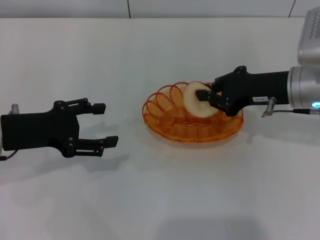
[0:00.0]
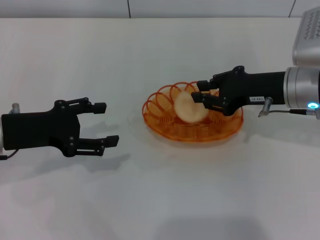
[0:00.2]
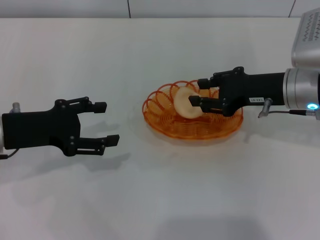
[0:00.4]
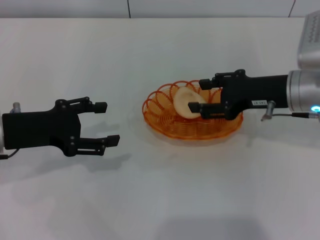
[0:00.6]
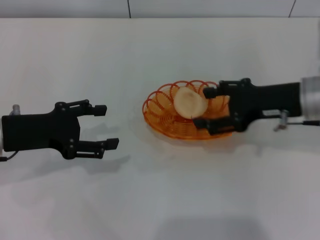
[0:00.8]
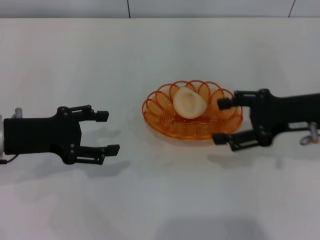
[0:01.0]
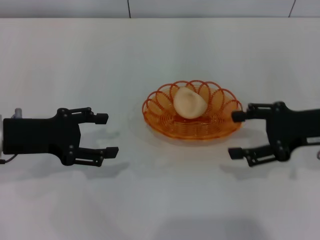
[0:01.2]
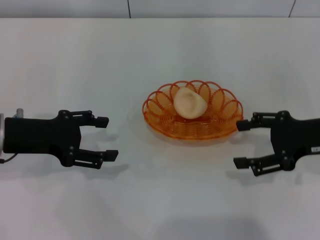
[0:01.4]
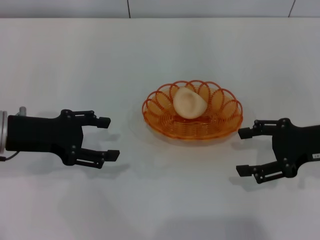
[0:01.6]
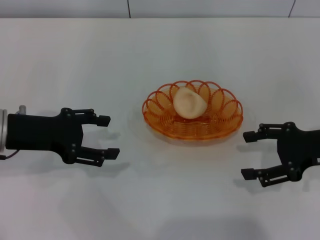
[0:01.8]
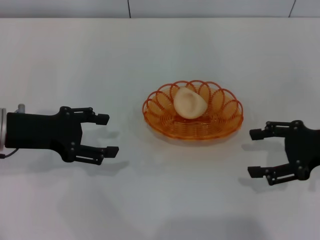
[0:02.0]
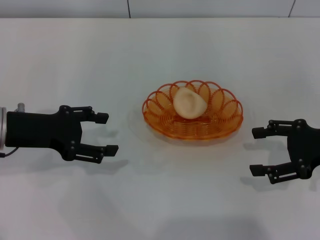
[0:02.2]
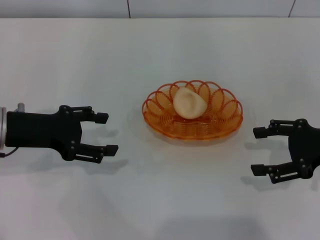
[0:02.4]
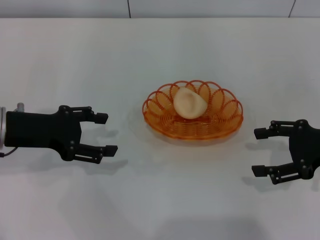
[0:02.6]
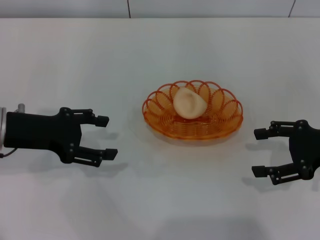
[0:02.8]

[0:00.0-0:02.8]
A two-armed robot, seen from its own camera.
Step, 0:00.0 to 0:00.8: Place the egg yolk pastry into the basket with the right gripper.
0:00.0 to 0:01.4: The right gripper travels to the right and backward by roughly 10 cm, and opens.
0:01.4 to 0:02.8: There are only small adjustments of the grippers.

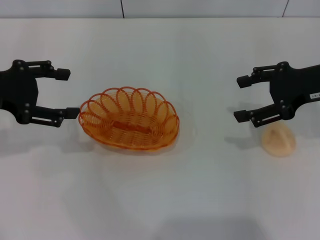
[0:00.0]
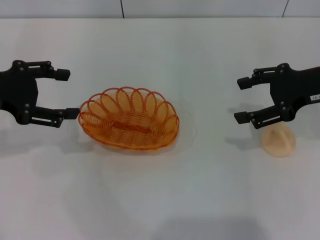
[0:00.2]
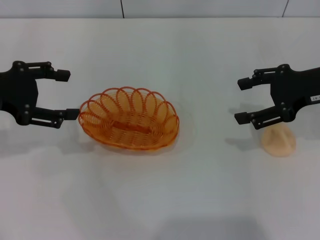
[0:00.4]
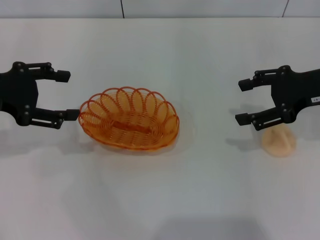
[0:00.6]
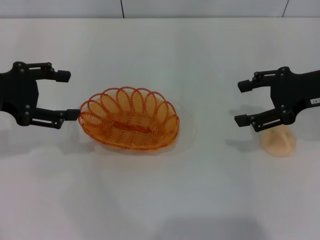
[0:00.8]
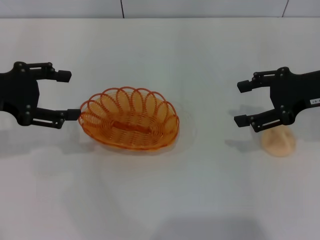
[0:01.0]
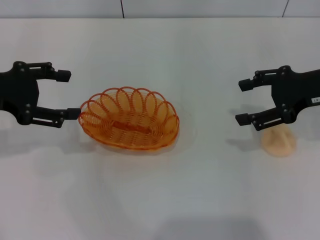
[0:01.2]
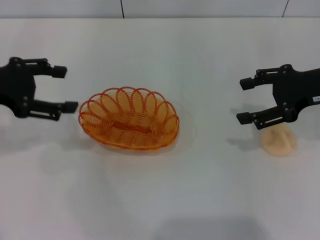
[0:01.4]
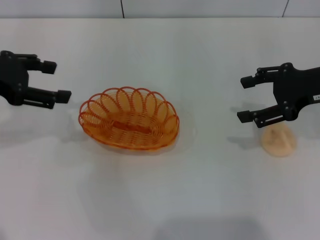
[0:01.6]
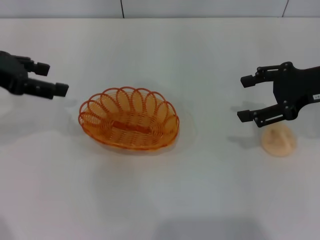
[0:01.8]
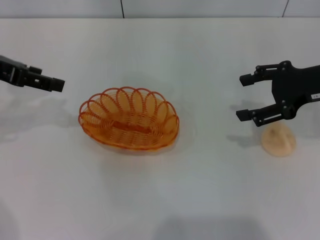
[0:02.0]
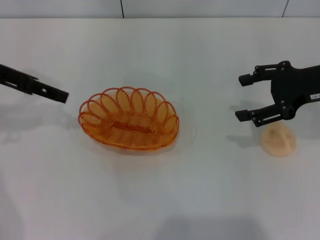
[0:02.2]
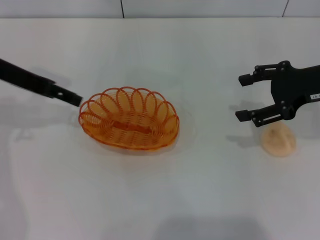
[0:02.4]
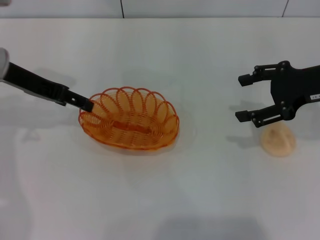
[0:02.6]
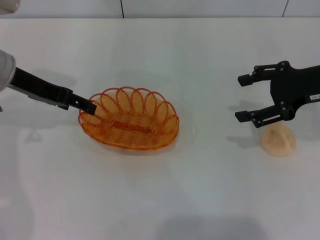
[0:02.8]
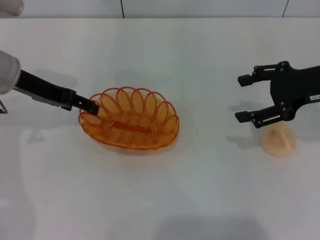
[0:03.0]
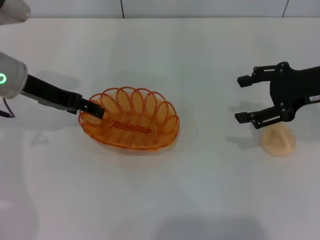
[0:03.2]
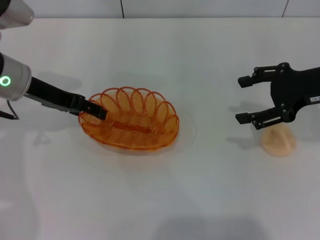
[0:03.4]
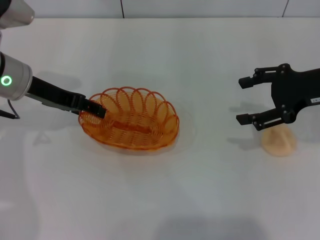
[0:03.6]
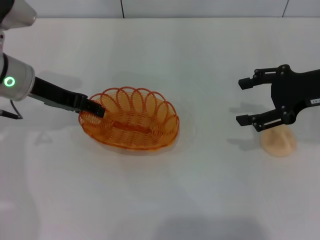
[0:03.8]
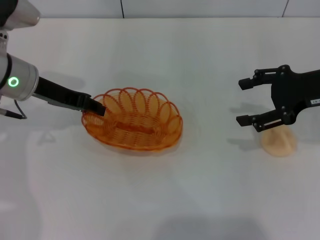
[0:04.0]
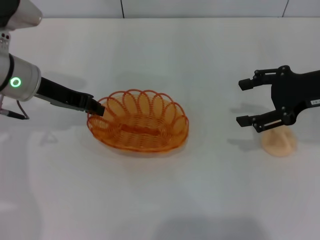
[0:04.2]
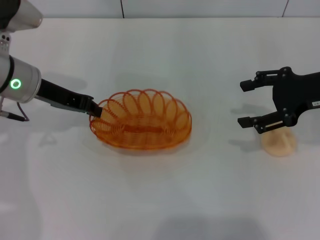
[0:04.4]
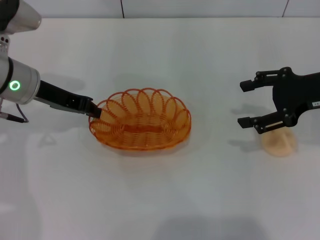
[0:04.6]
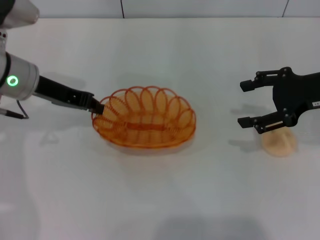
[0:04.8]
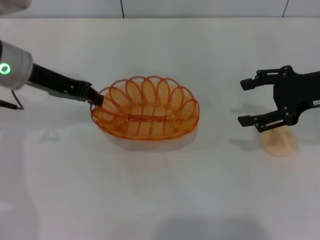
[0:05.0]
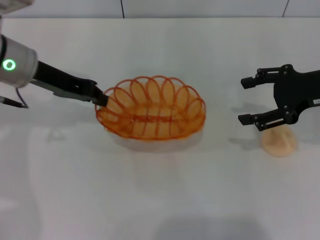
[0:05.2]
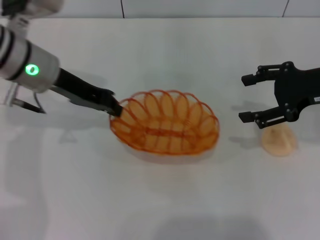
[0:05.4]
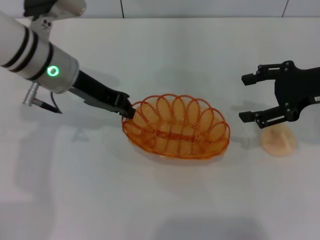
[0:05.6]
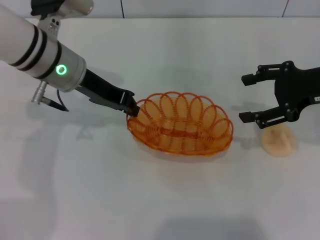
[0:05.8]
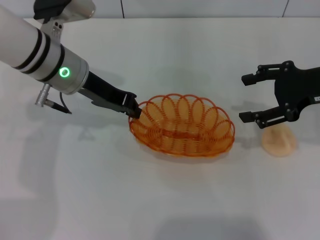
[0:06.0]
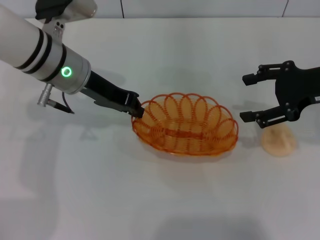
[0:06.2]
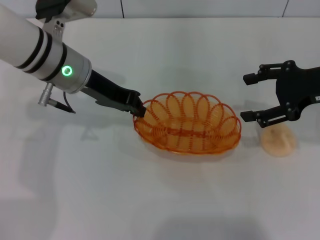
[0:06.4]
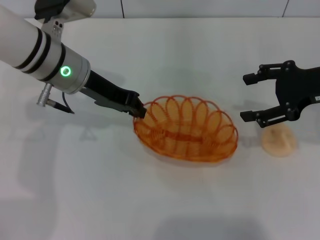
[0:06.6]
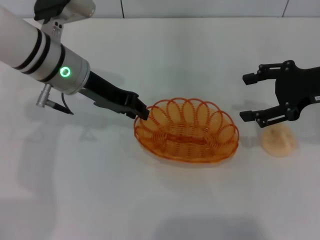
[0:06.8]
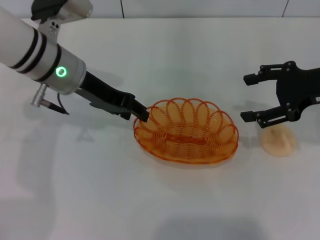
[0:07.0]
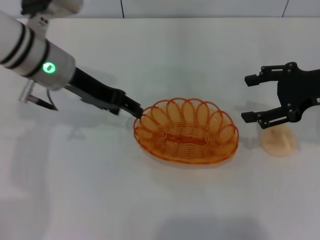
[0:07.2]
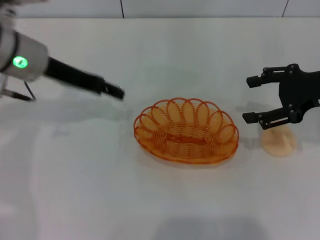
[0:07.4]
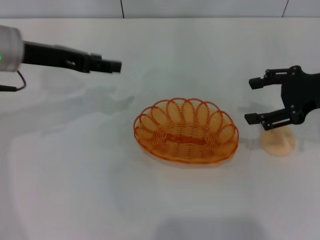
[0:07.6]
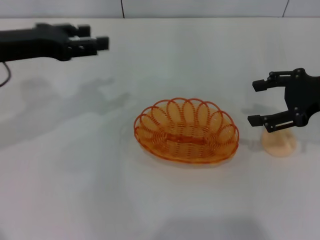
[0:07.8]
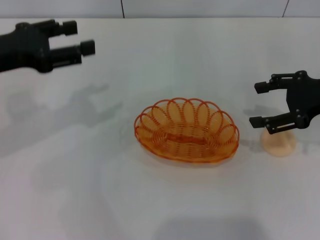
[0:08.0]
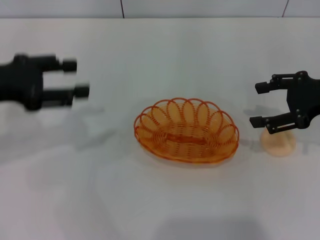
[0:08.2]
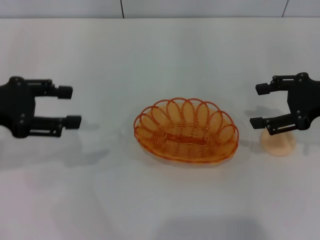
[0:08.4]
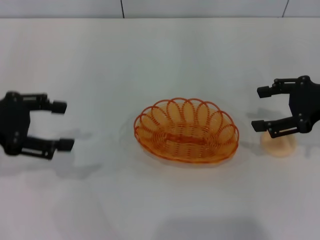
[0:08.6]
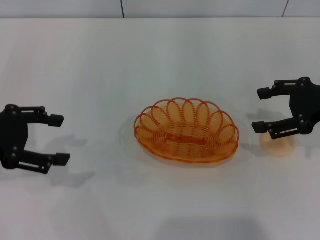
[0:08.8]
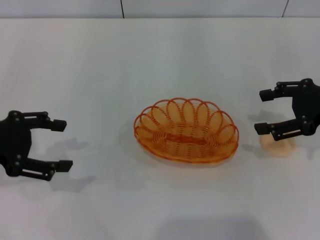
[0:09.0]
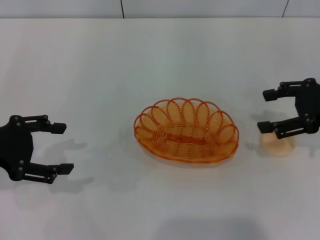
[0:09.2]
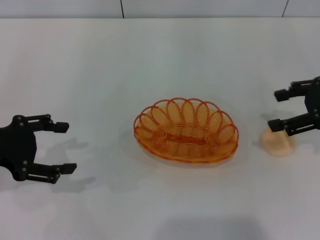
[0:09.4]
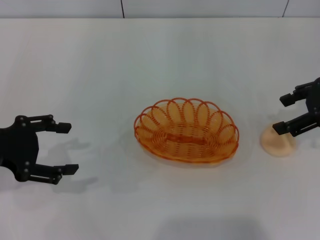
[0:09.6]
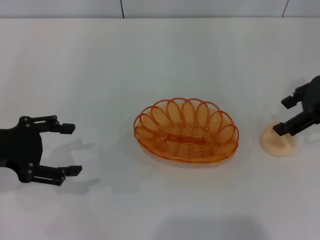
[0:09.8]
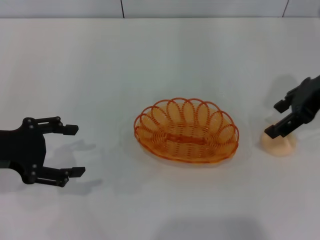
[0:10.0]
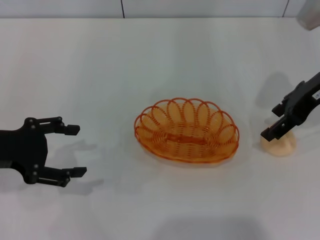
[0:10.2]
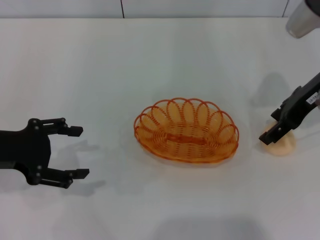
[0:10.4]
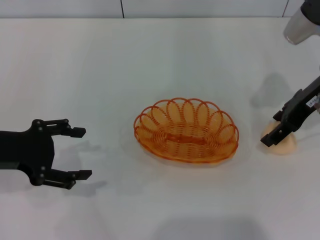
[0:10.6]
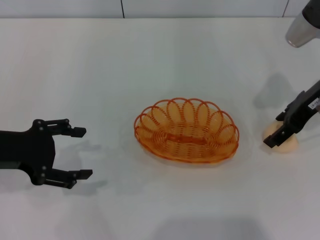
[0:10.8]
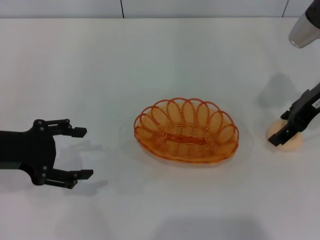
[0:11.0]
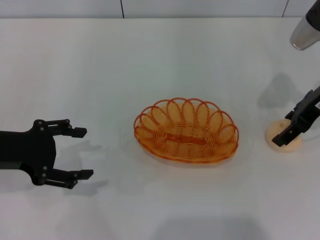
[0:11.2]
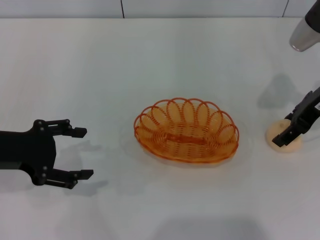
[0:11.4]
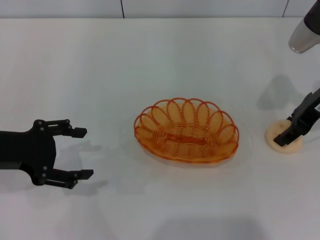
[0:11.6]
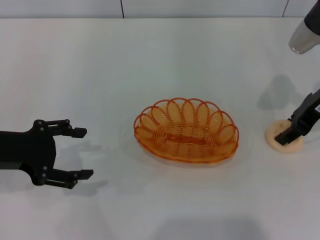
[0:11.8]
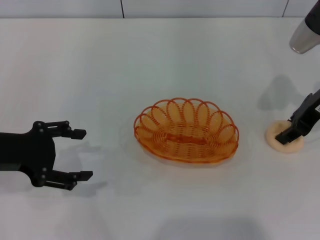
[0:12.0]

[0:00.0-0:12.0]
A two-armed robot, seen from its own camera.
Step, 0:00.0 to 0:05.0: Pick up the basket with the left gripper.
Step, 0:05.4 to 0:07.8: Place the basket in the center of view with the left gripper.
0:00.0 to 0:01.6: There are only small adjustments of the grippers.
0:01.6 to 0:03.0: The left gripper goes approximately 10 cm to the right and forward.
0:03.0 to 0:04.4: The left gripper closes its fingers.
0:04.4 to 0:06.0: The left gripper travels to the right by approximately 5 cm.
0:06.0 to 0:07.6: The left gripper heads to the left, covering approximately 10 cm, and opens its fingers.
0:07.6 to 0:09.0: The left gripper goes roughly 15 cm backward and to the left.
0:09.0 to 0:10.4: The right gripper moves to the left and forward, some 10 cm.
0:10.4 to 0:12.0: The right gripper closes its fingers.

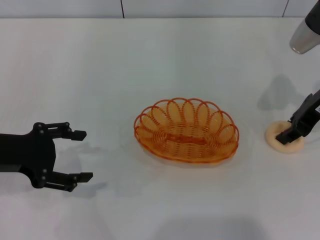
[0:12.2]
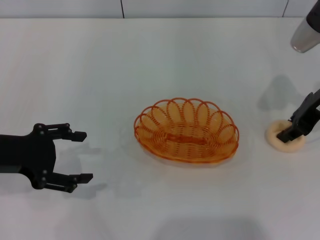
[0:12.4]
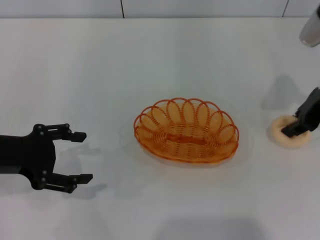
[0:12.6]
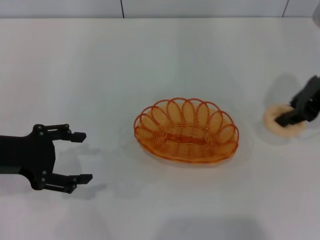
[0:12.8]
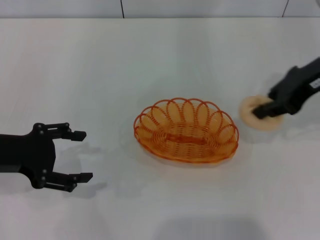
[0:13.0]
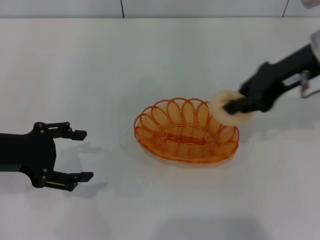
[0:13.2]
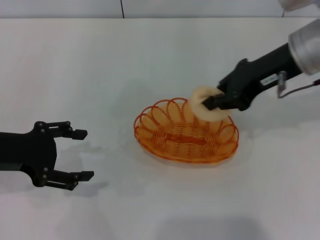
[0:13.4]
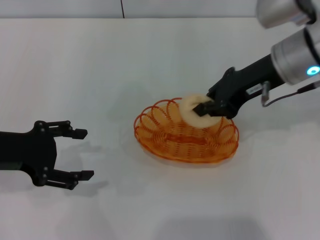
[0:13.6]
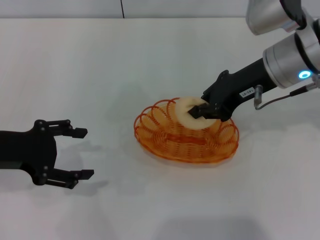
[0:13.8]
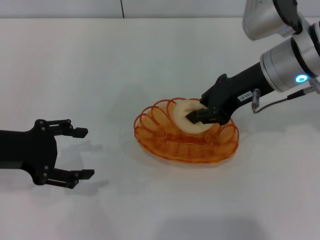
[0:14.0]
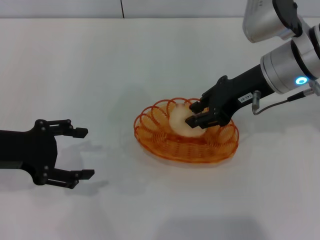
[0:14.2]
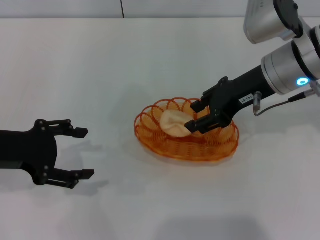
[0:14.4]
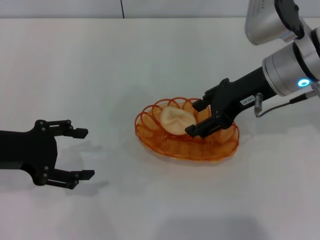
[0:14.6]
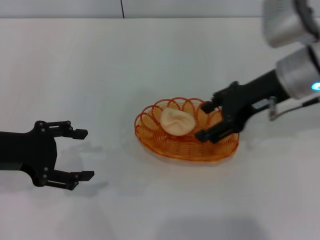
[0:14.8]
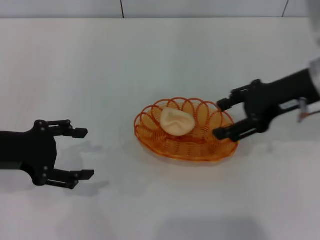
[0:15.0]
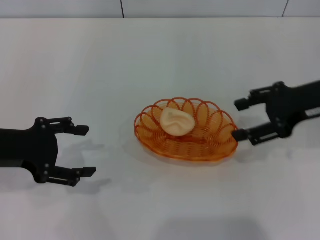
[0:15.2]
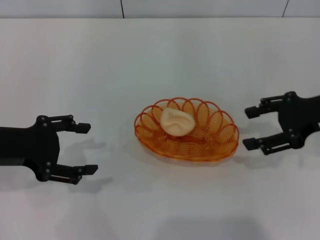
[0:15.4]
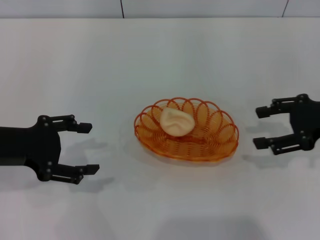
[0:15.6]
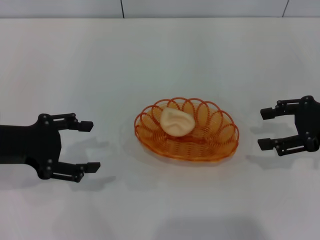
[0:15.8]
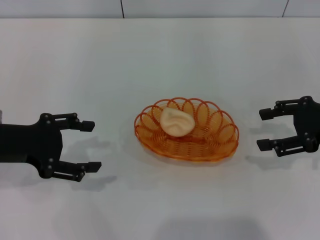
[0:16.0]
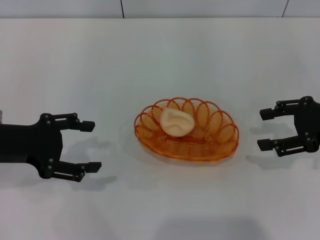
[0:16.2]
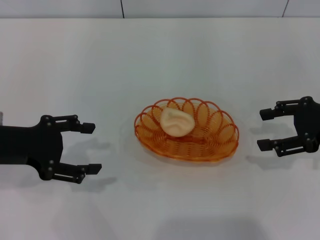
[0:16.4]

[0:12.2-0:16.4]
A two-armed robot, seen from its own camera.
Step, 0:13.0 to 0:15.2: Place the egg yolk pastry into the basket with the right gripper.
0:12.2 to 0:13.6: The right gripper is displaced to the left by roughly 10 cm, and closes up.
0:13.6 to 0:15.0: The right gripper shifts by roughly 5 cm, and opens its fingers.
0:15.0 to 0:16.4: The right gripper goes about 10 cm to the right.
